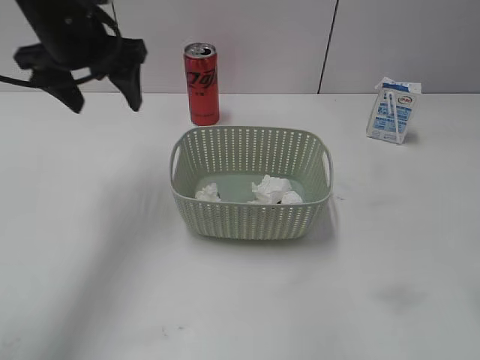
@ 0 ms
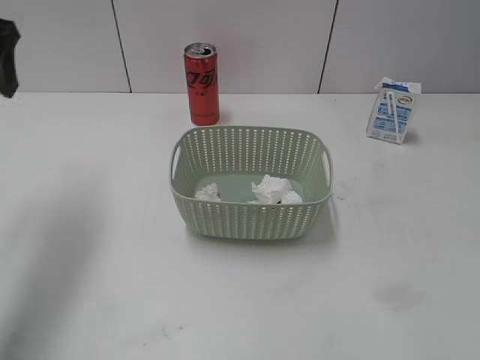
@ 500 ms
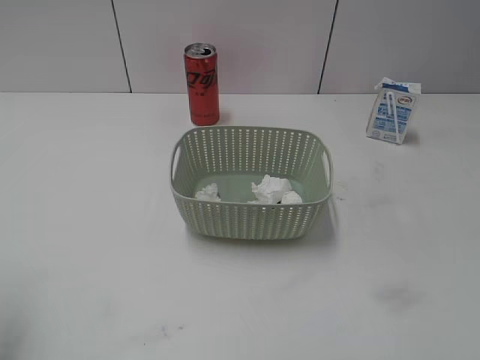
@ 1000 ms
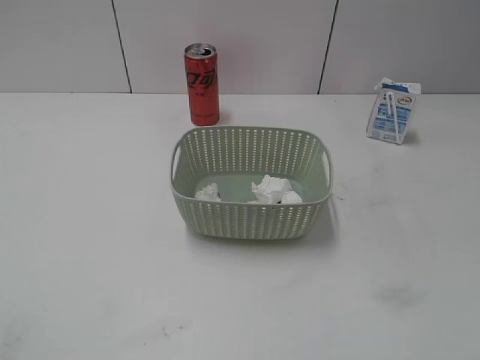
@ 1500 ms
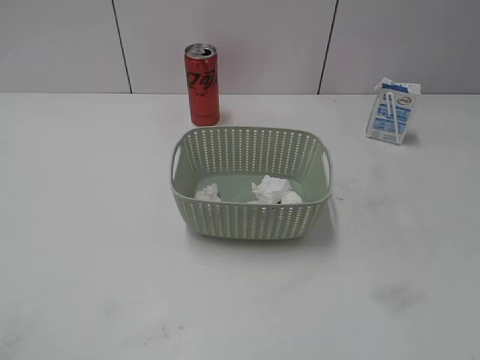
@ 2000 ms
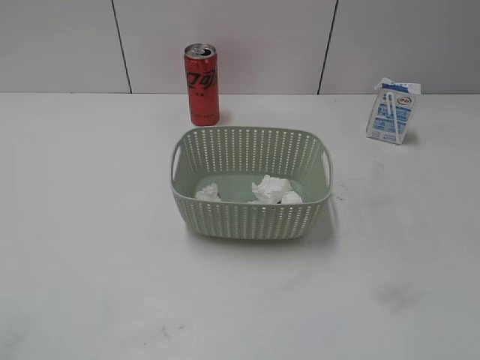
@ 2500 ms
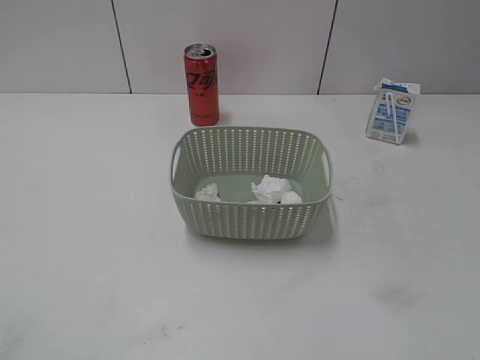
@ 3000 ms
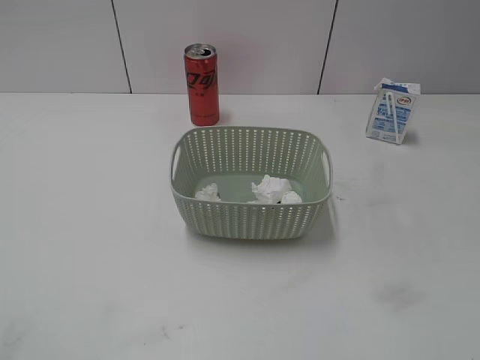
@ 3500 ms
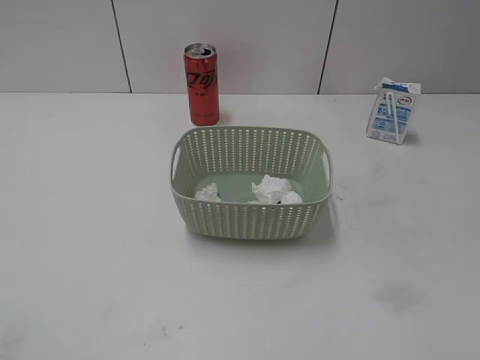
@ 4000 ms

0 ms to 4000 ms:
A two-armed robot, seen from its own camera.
0 ms to 2000 ms: The left gripper shifts roughly 40 cm backward and to the left.
